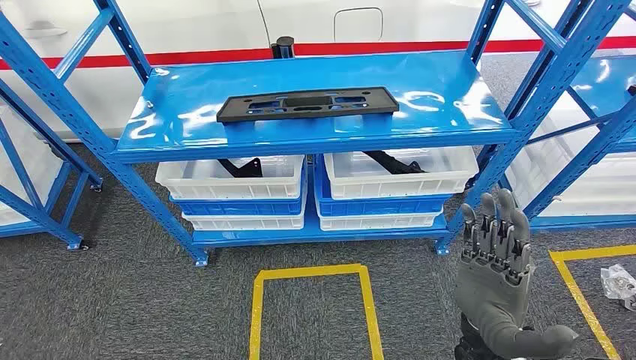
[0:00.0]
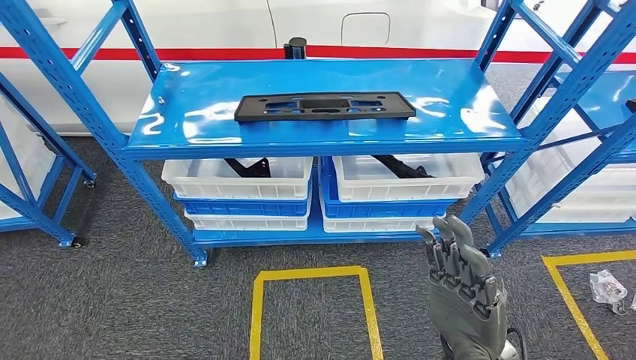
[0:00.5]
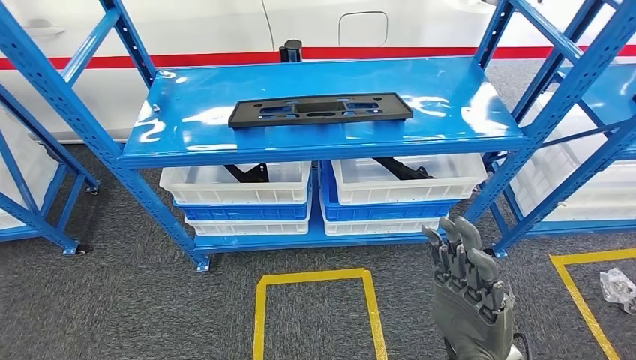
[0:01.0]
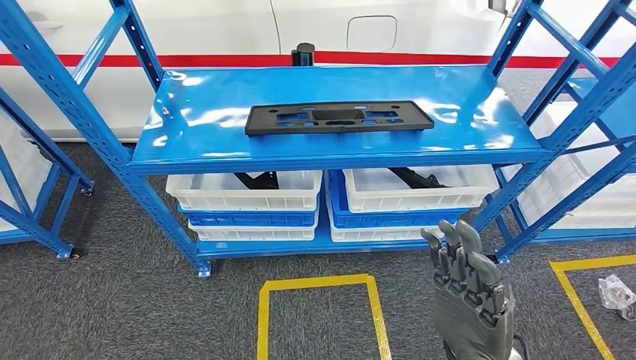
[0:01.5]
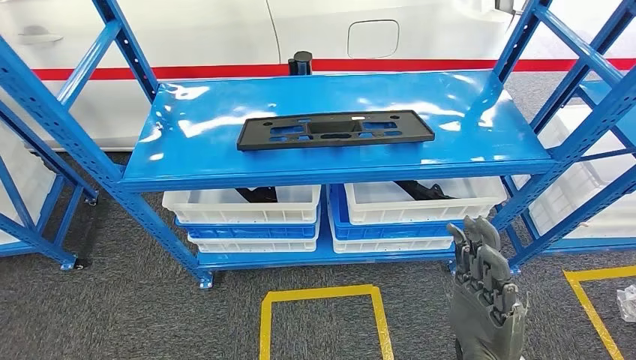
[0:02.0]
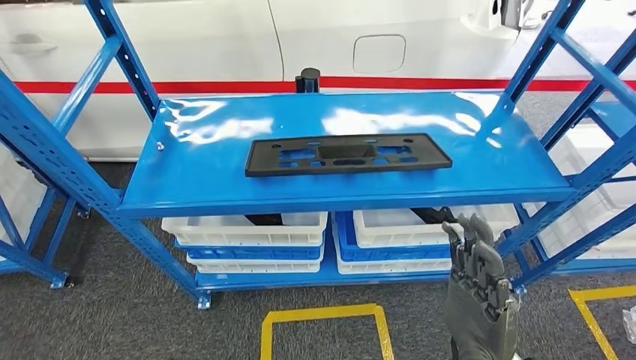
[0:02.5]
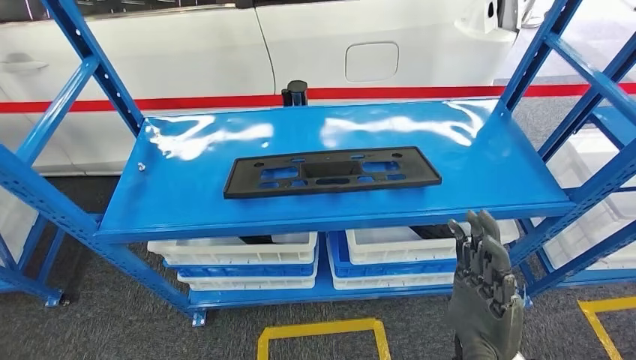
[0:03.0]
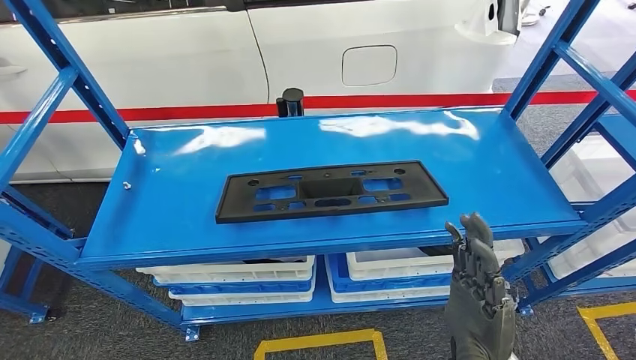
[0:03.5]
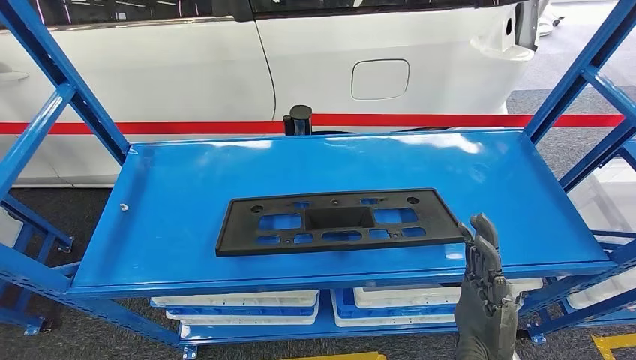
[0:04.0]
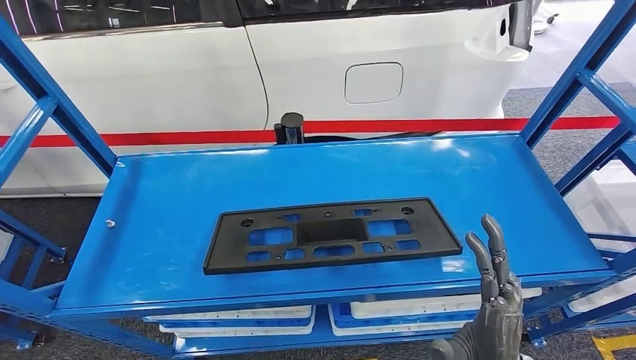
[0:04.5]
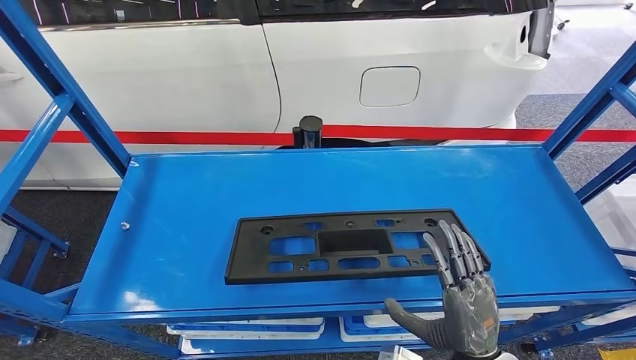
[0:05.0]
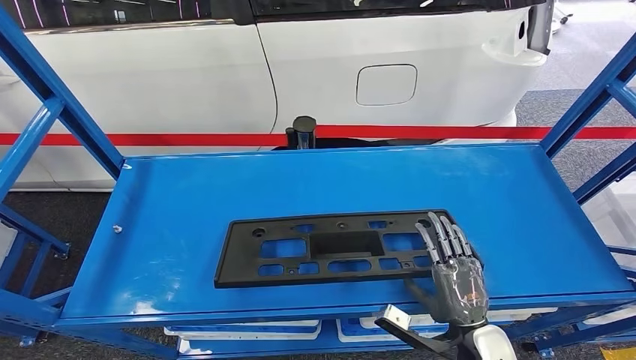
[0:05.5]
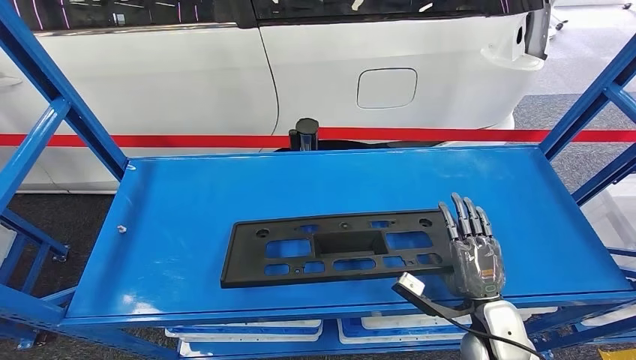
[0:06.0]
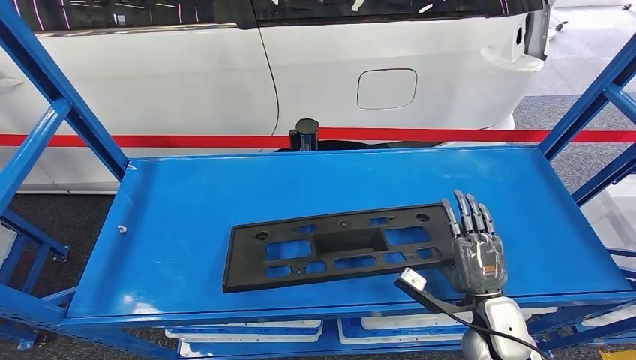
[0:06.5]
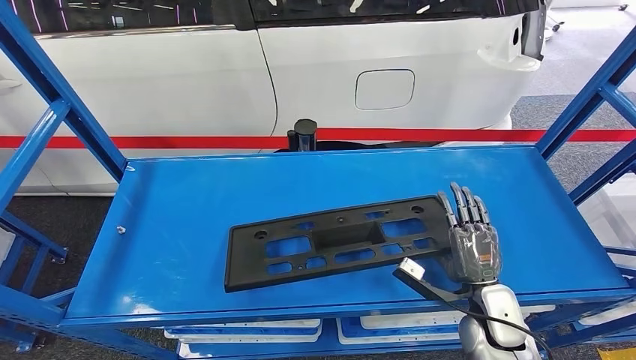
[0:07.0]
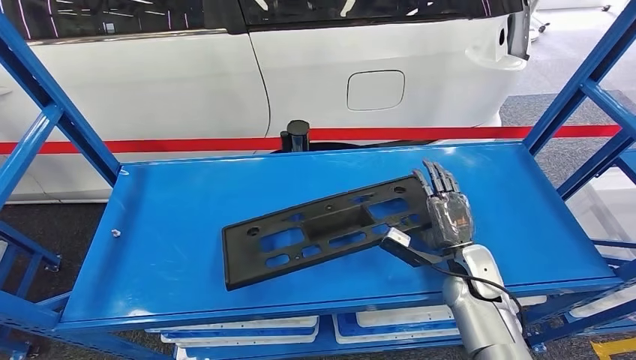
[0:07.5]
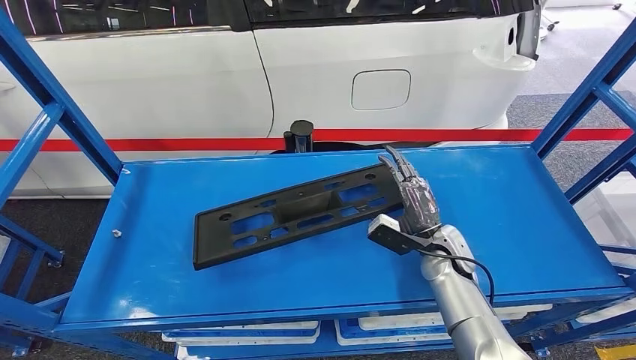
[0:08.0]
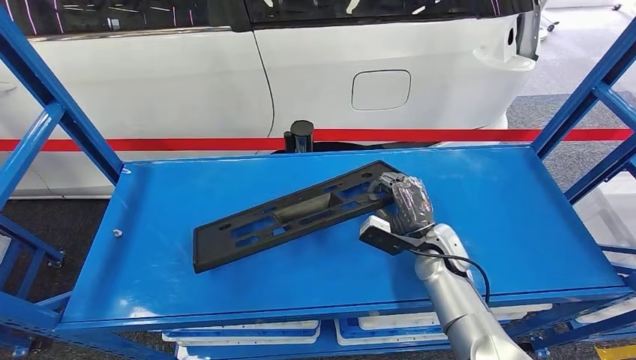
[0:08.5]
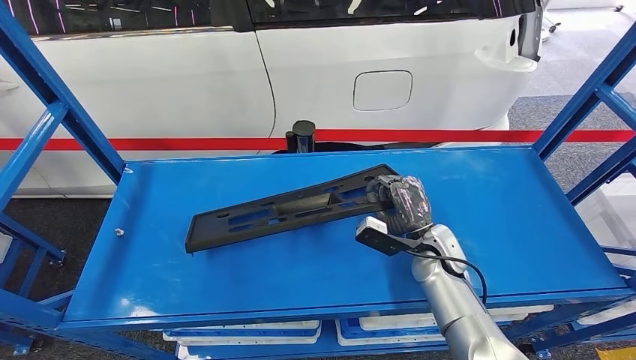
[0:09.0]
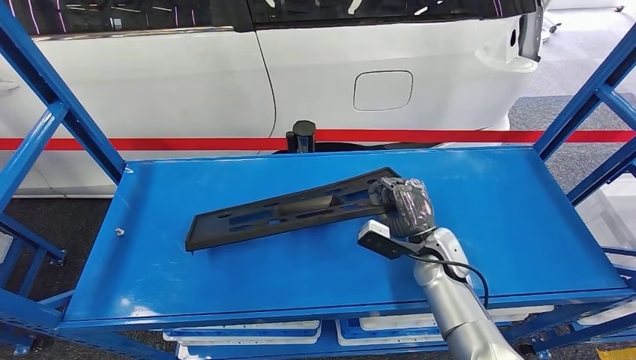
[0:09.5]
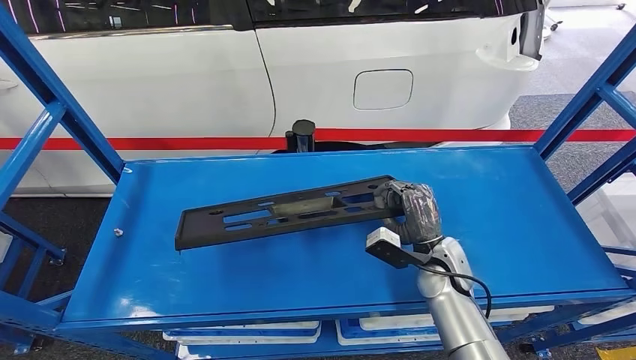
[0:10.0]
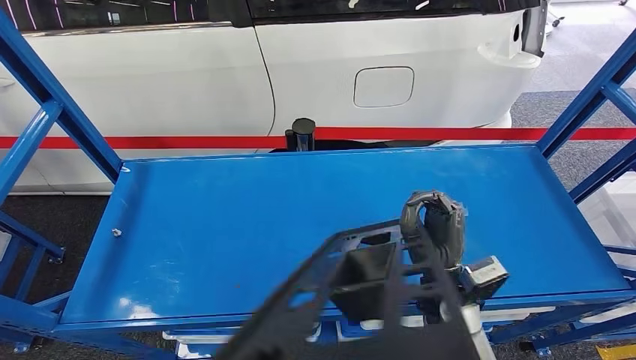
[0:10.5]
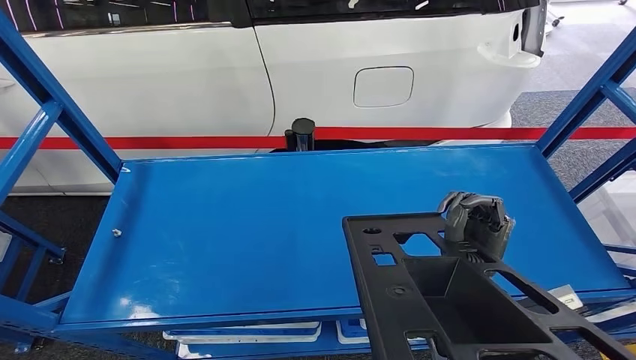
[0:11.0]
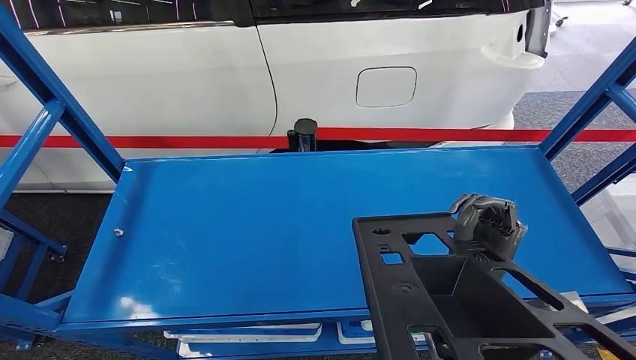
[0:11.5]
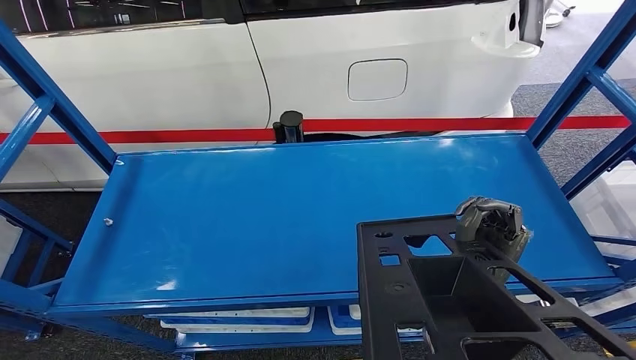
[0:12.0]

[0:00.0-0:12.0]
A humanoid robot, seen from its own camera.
0:08.0 to 0:10.0: The hands make only small movements.

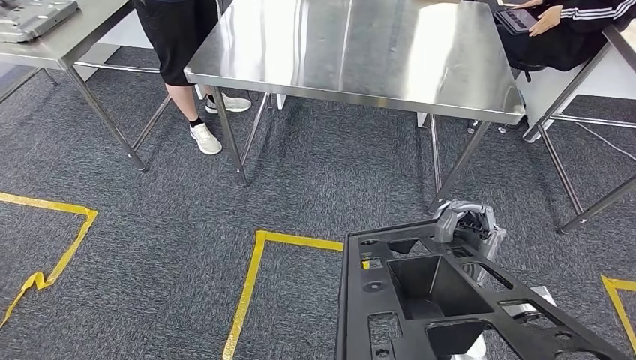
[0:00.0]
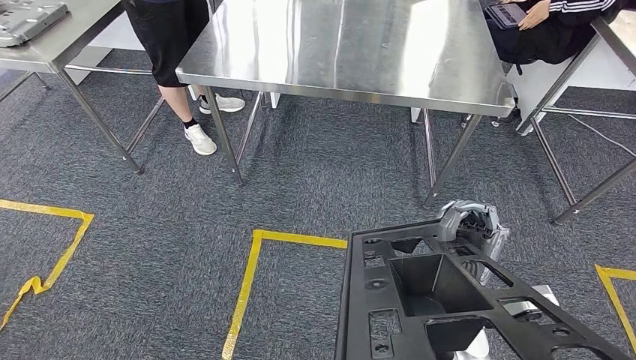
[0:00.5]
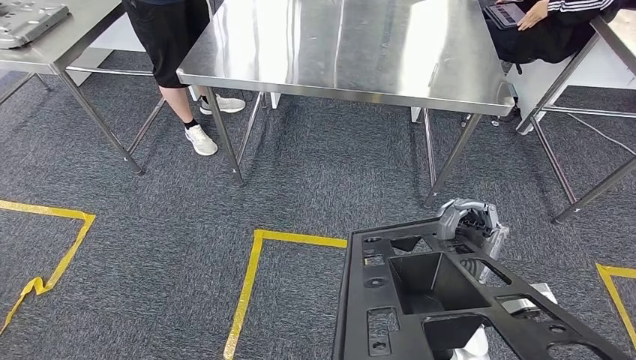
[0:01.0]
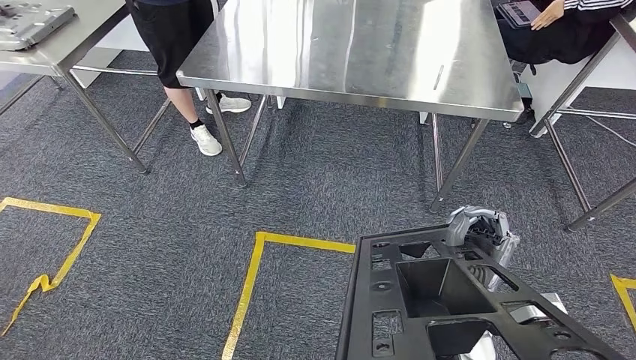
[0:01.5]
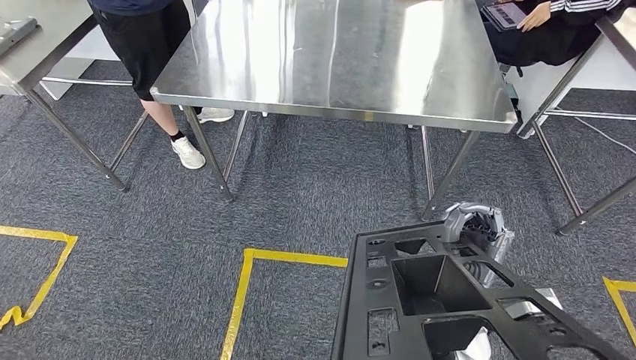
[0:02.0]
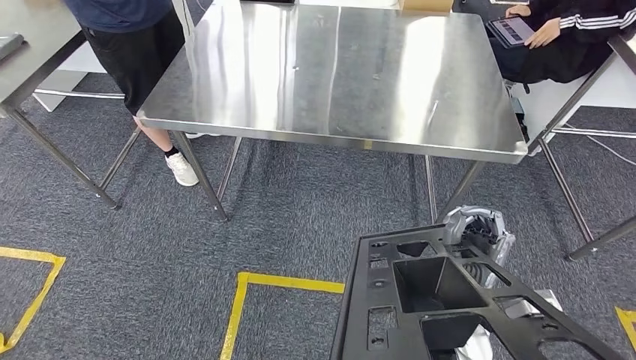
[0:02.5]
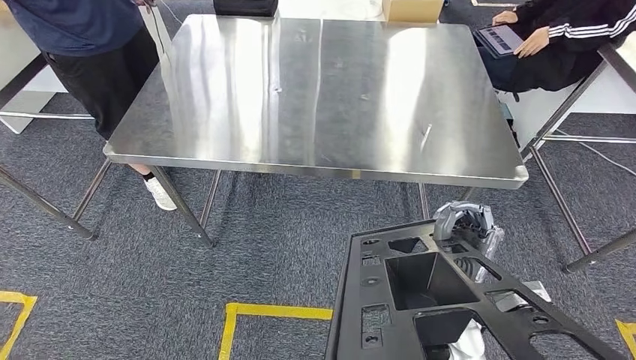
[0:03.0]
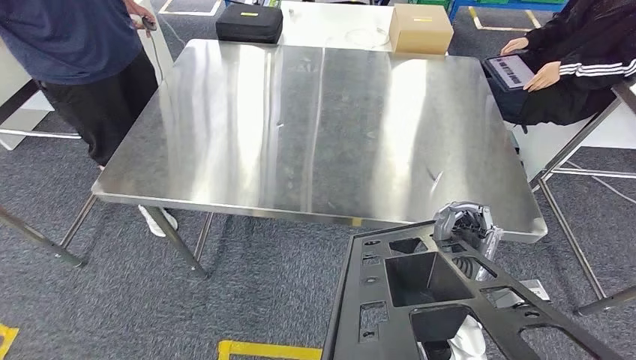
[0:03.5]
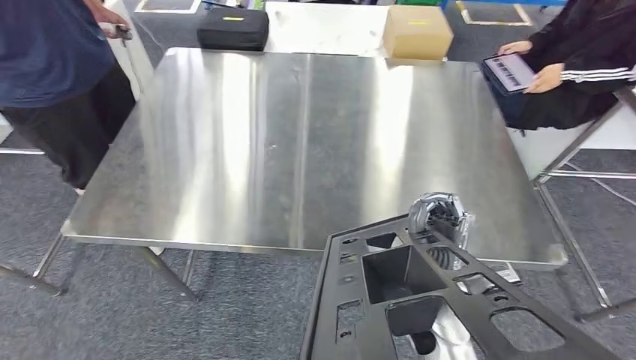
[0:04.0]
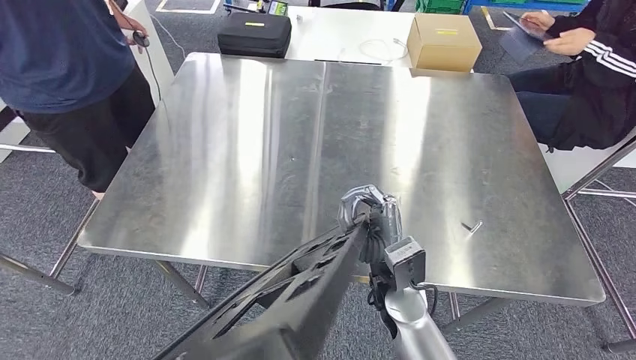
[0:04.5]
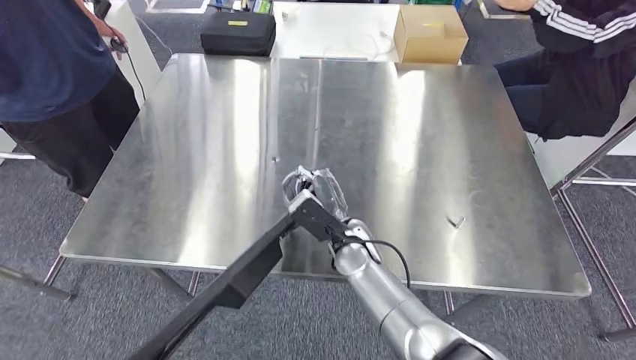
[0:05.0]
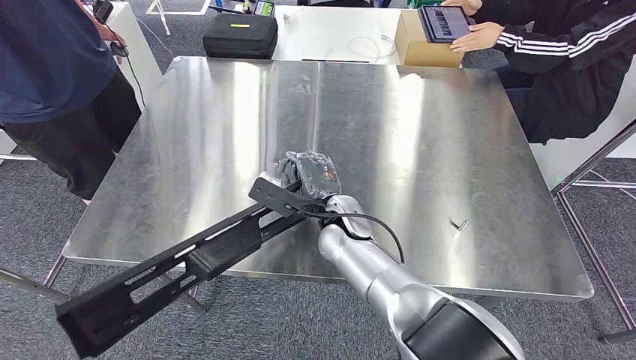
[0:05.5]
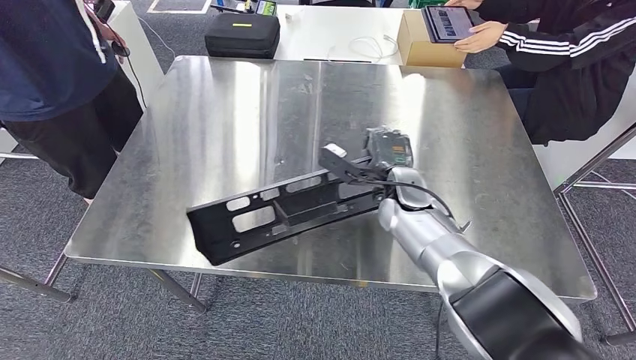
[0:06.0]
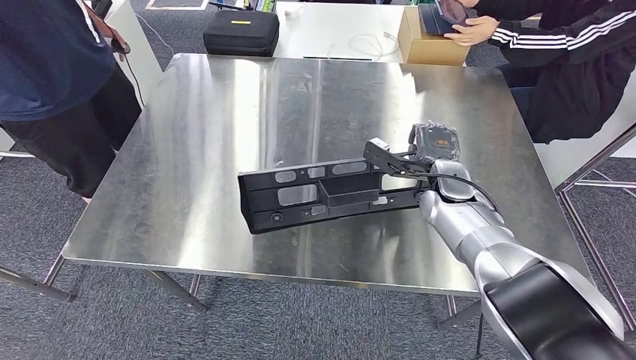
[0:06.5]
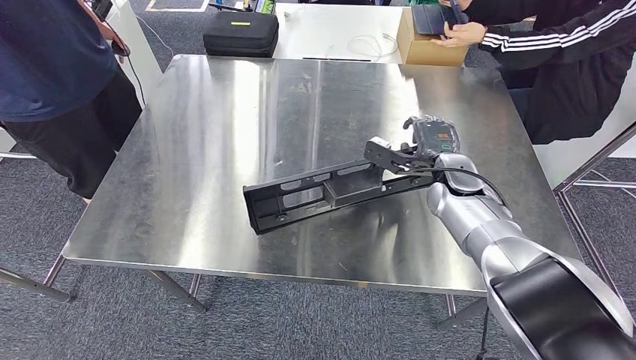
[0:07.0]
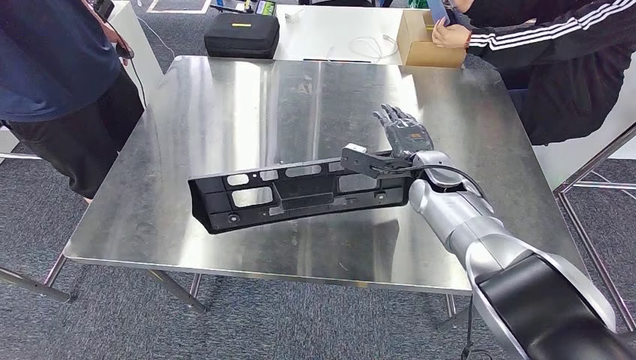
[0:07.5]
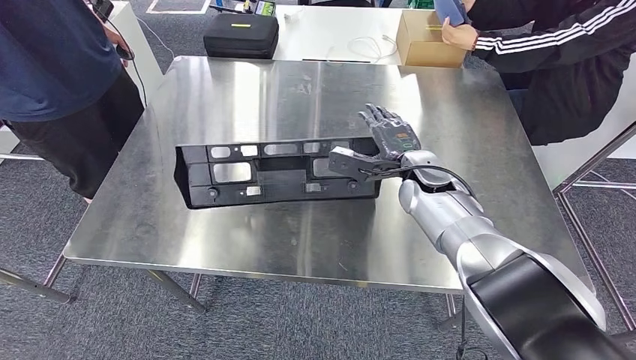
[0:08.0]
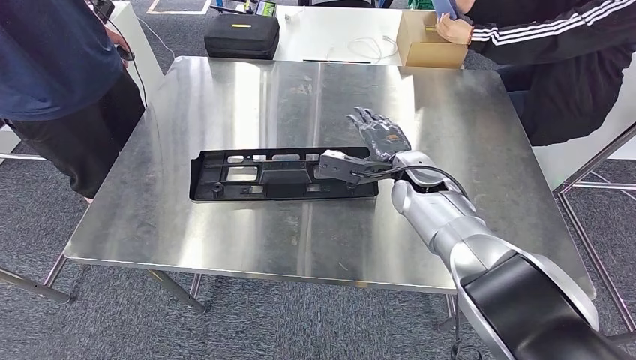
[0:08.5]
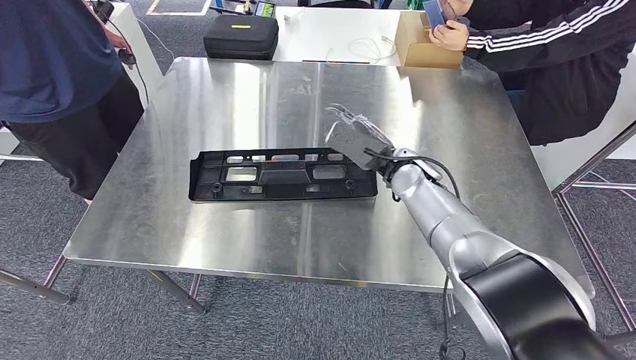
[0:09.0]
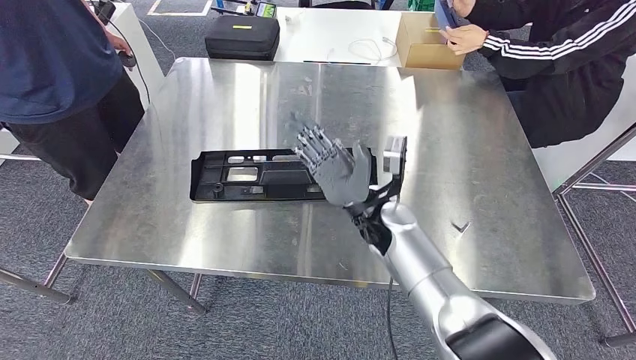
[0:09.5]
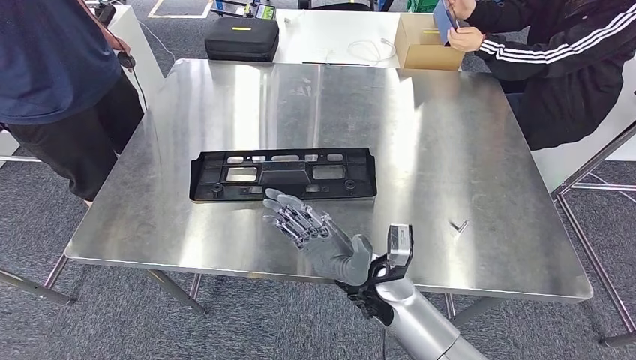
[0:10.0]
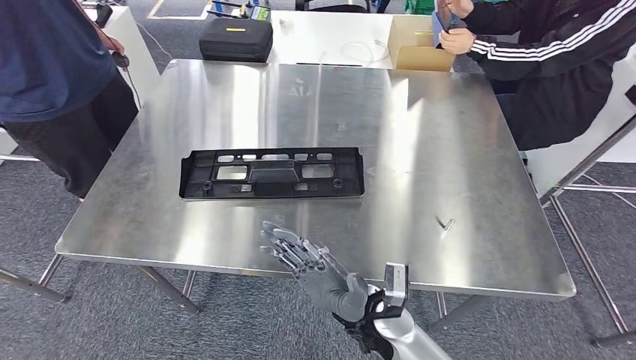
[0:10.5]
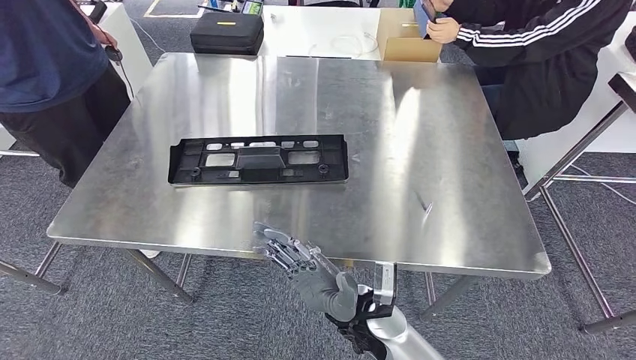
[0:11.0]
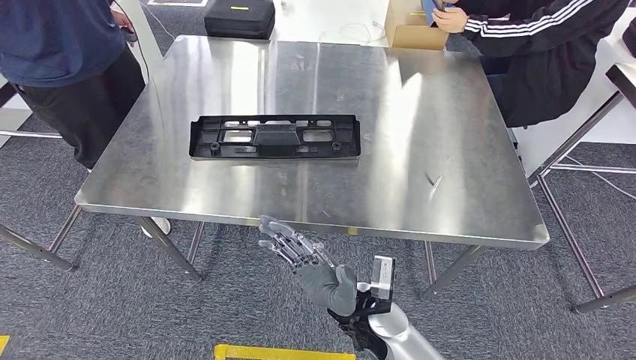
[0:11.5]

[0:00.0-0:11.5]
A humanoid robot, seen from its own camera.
Step, 0:00.0 to 0:03.0: Move the large material to the workbench.
0:06.0 to 0:07.5: The right hand goes some 5 cm to the right.
